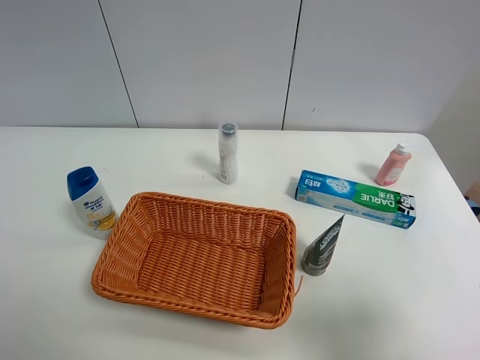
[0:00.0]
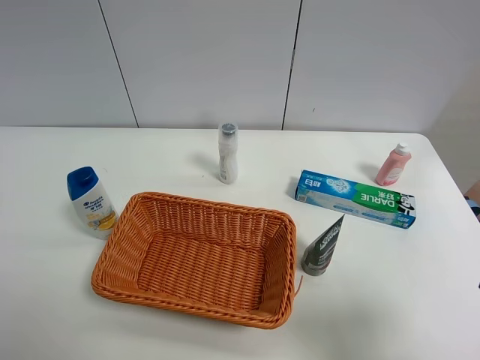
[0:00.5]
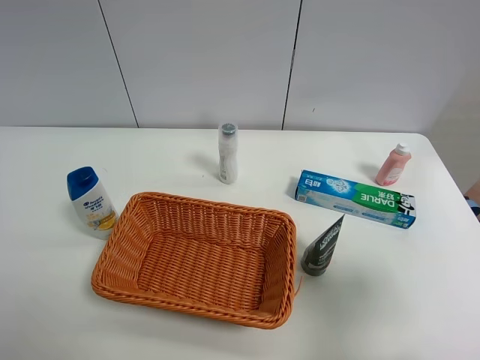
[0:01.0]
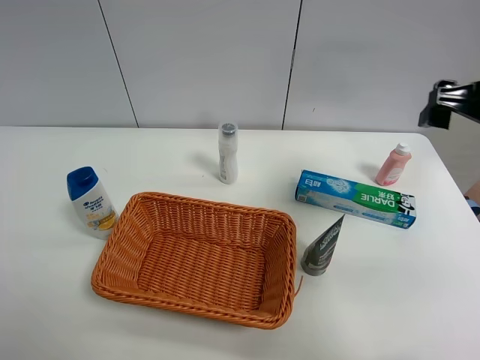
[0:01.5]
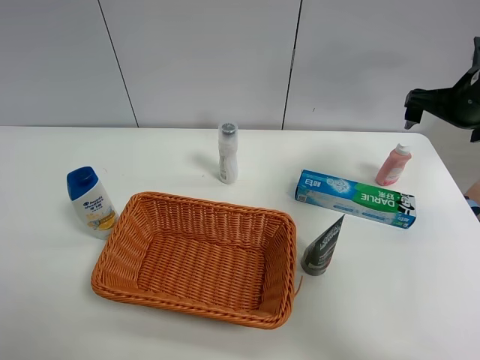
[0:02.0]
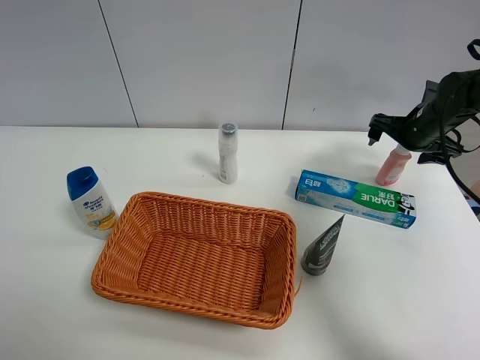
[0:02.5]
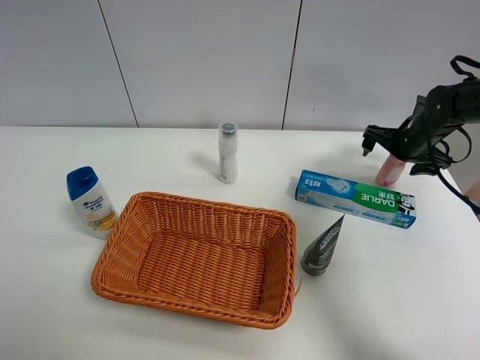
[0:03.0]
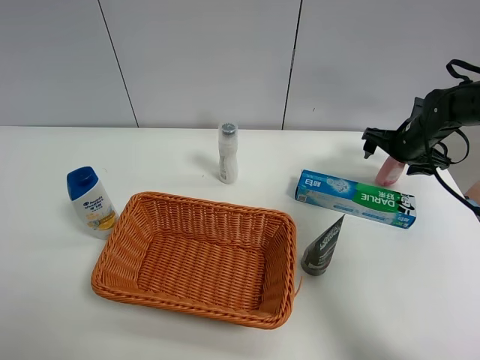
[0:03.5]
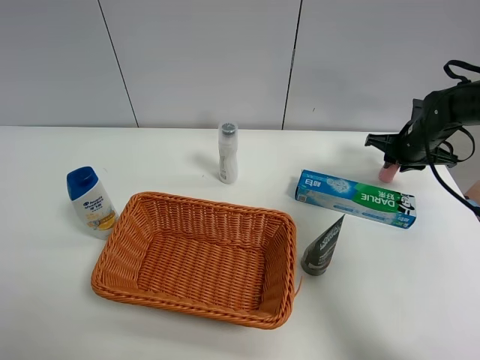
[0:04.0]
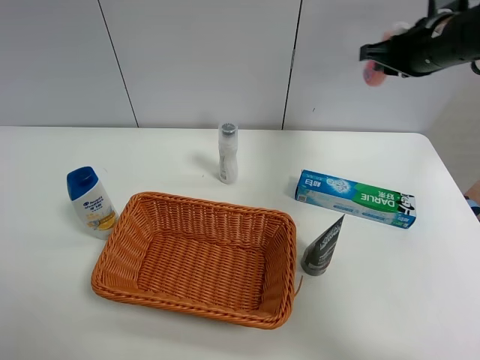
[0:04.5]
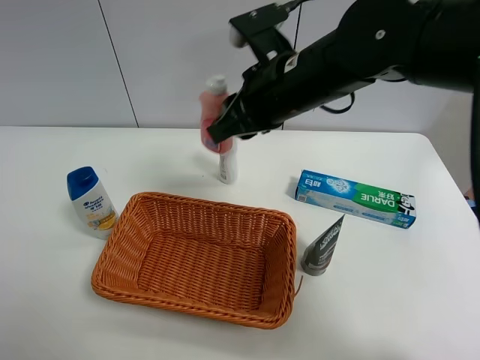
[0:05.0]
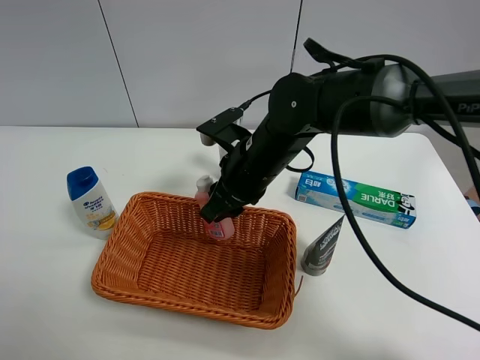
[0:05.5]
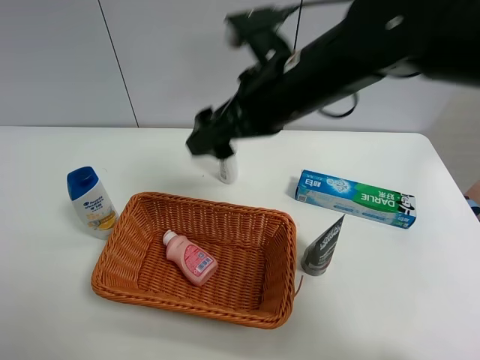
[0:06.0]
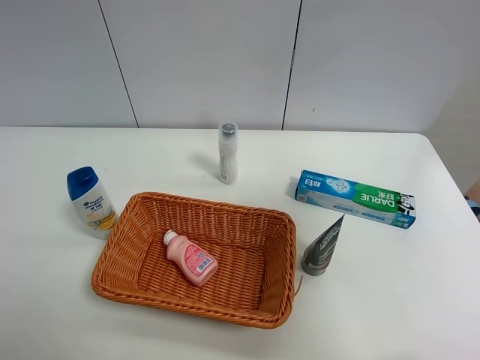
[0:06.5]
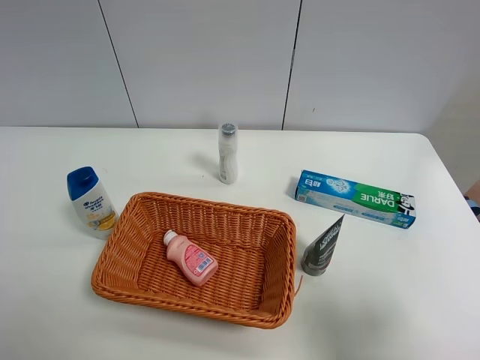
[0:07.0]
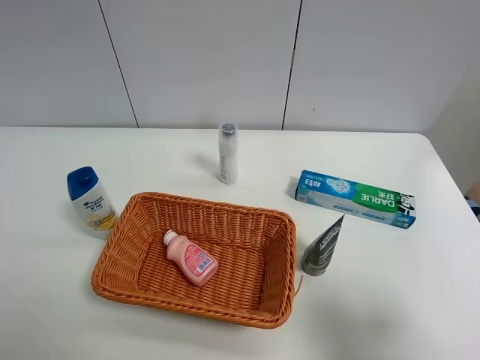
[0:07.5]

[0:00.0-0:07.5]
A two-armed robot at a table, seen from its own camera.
Task of the whole recording: Place the object closest to the toothpaste in the basket.
Step, 0:00.0 to 0:03.5: Grasp the pink laundry detergent with right gripper.
Step, 0:04.0 to 0:05.5: Place the pink laundry detergent in the basket with right gripper.
0:00.0 to 0:02.0: The right gripper travels forward by some 35 cm.
0:02.0 to 0:04.0: The right gripper travels downward and forward by approximately 15 cm, and closes its fingers.
0:04.0 to 0:05.5: The right gripper travels to the left and backward by some 35 cm.
0:05.5 to 0:07.5: The right gripper is displaced backward and to the right by roughly 40 cm, and opens.

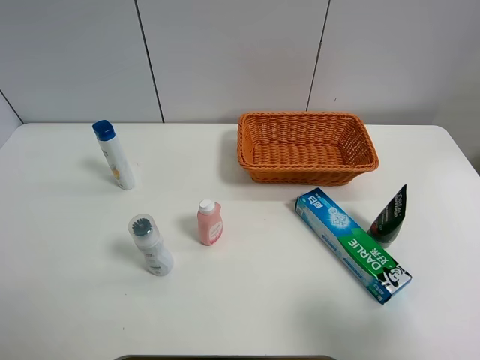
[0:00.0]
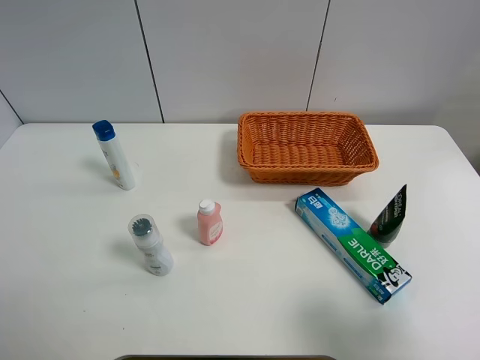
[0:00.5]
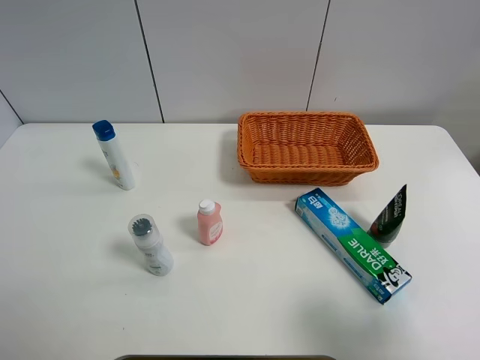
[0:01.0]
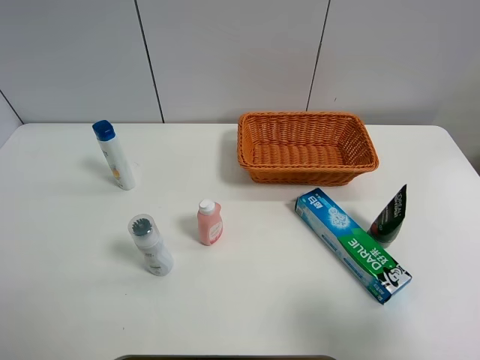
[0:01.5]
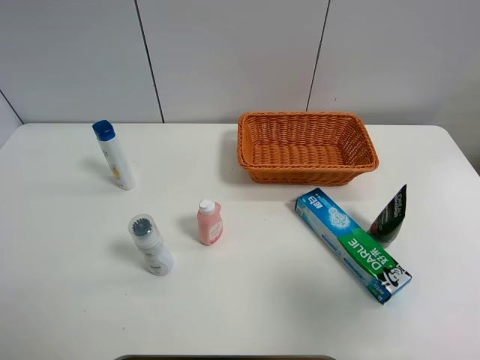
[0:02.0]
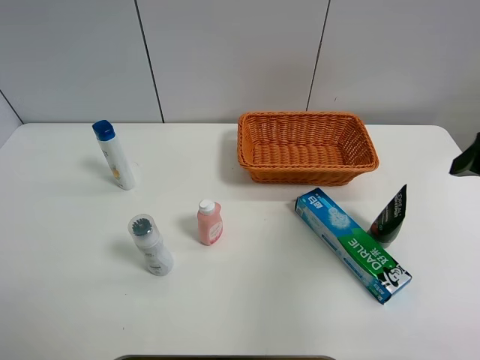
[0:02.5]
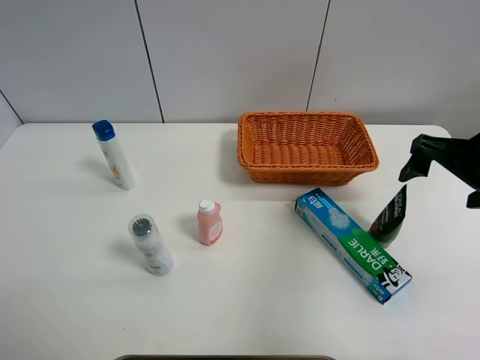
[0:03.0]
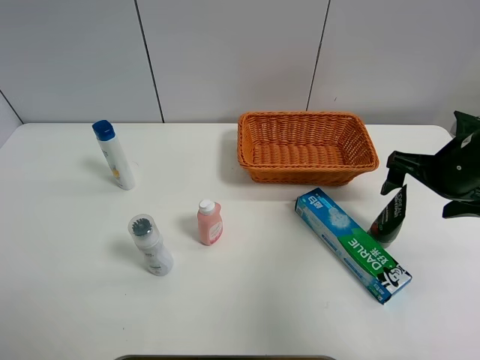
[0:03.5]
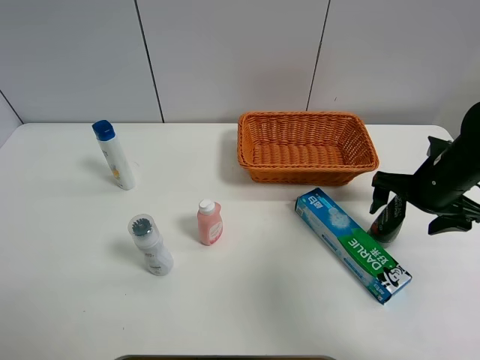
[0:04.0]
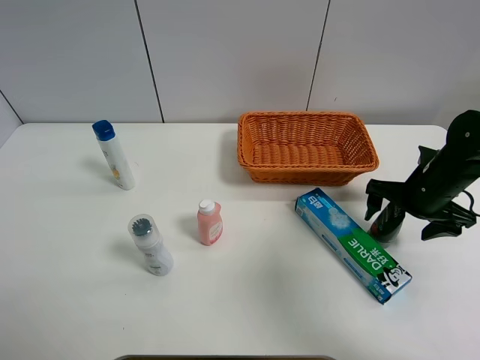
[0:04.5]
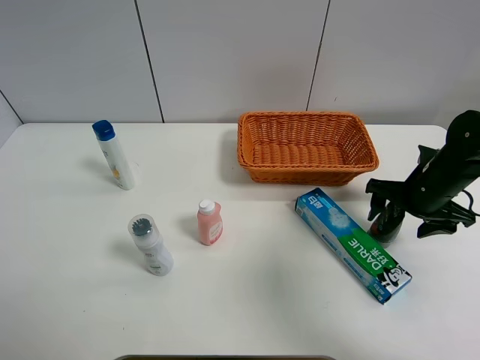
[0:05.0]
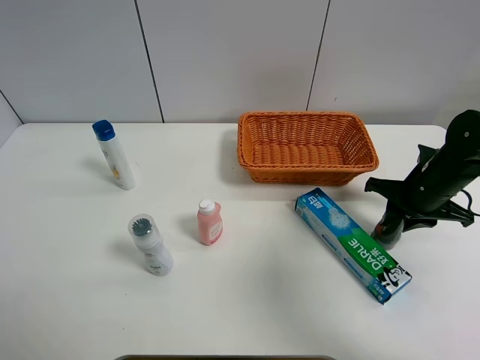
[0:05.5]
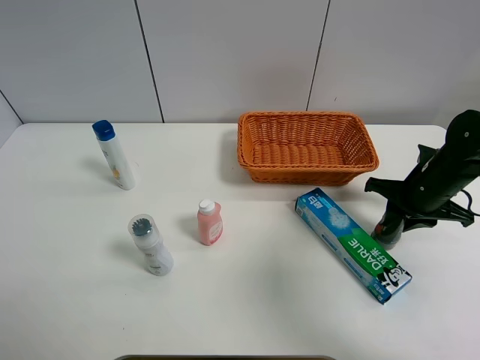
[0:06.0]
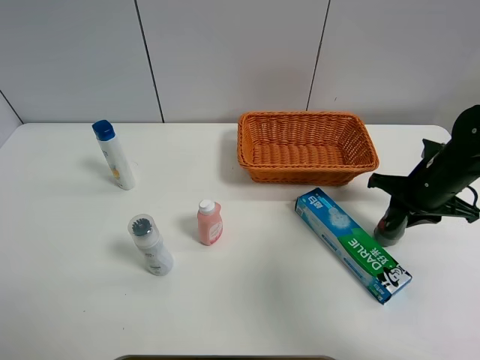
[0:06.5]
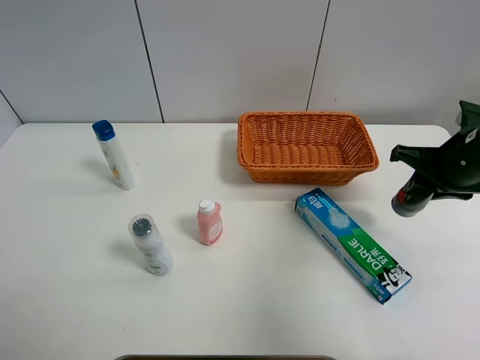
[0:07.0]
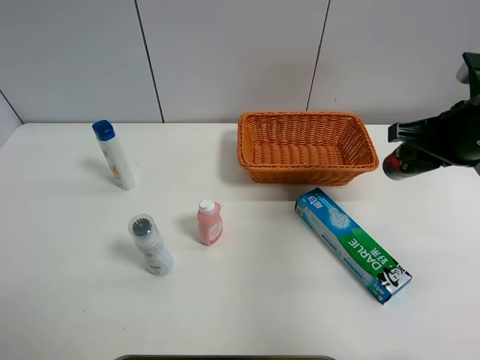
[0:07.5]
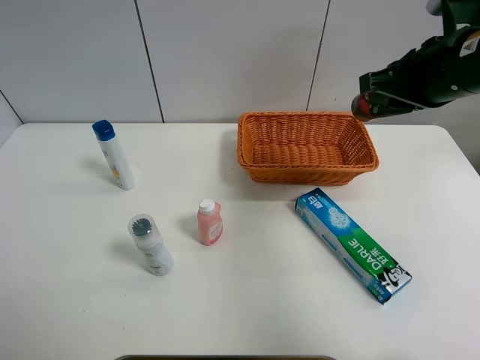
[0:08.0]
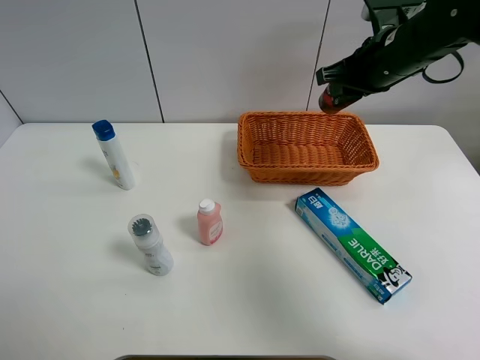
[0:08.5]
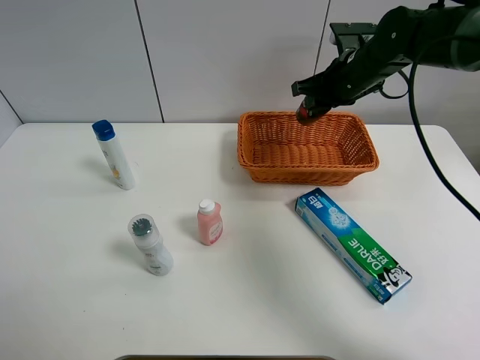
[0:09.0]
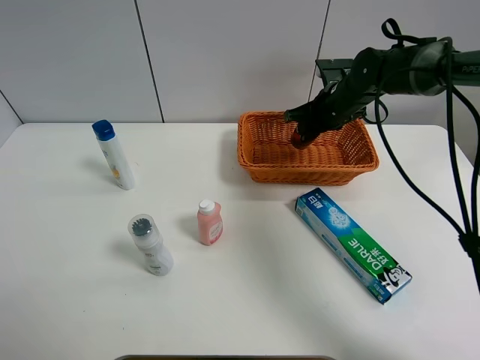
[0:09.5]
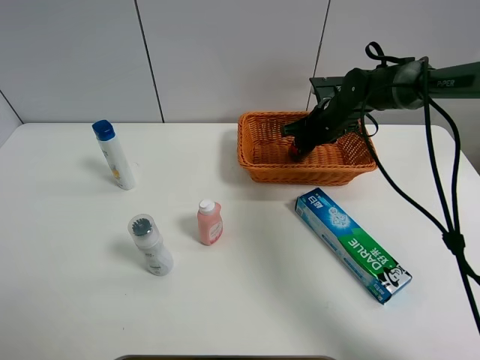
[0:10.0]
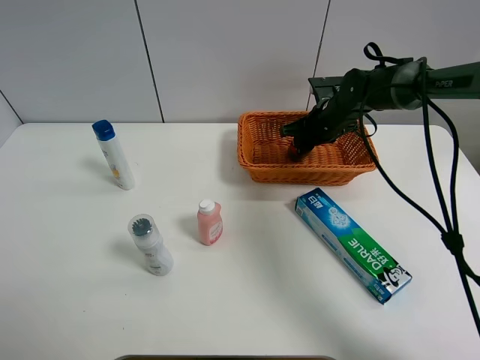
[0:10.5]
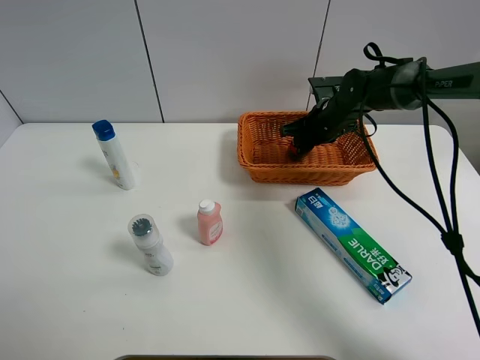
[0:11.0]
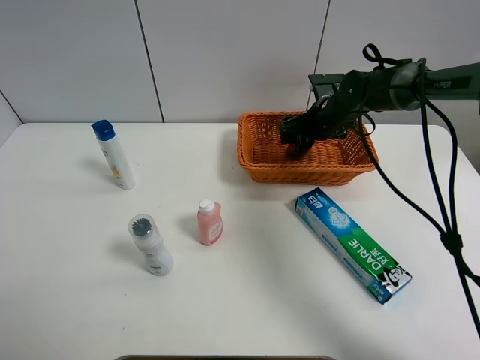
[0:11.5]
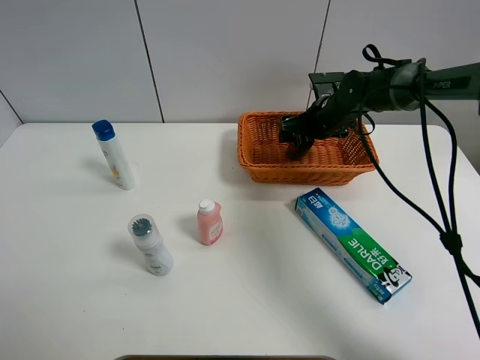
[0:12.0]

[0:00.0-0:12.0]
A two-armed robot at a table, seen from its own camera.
Task of the whole recording: Place the object closest to the toothpaste in the basket.
Step, 0:00.0 to 0:05.0: Grasp the soft facial cleanser with right gripper.
0:00.0 to 0:02.0: The right gripper heads upward, covering about 5 cm.
0:02.0 to 0:04.0: The right gripper heads forward and downward, covering about 30 cm.
0:04.0 to 0:06.0: The right gripper closes its fingers.
0:06.0 to 0:08.0: The right gripper heads upward, covering about 20 cm.
0:08.0 to 0:10.0: The right gripper travels downward and forward by about 25 cm.
0:10.0 to 0:12.0: The right gripper opens its fingers.

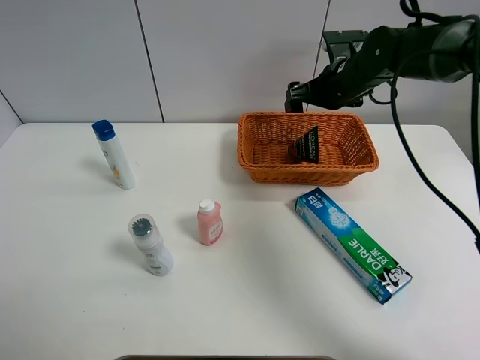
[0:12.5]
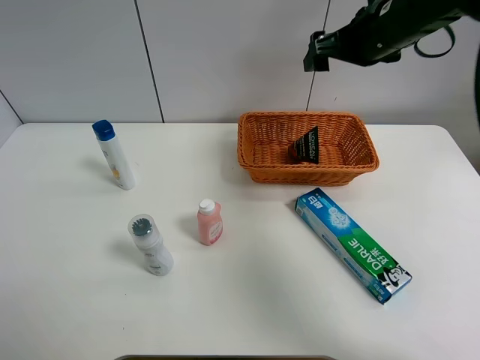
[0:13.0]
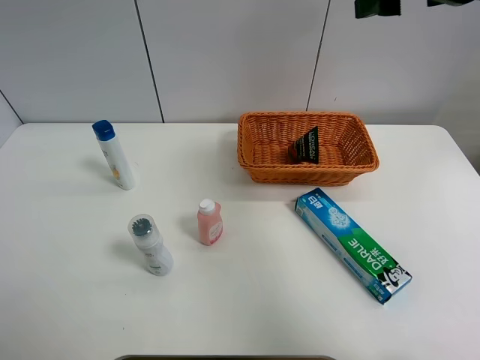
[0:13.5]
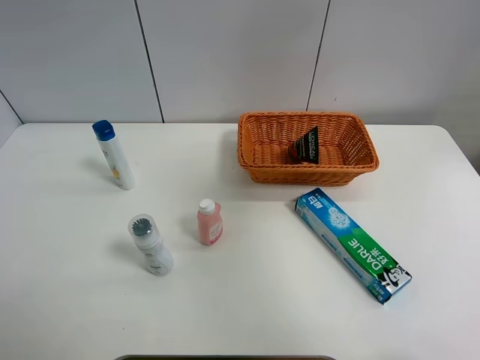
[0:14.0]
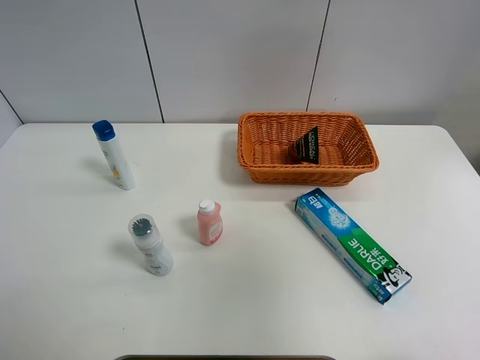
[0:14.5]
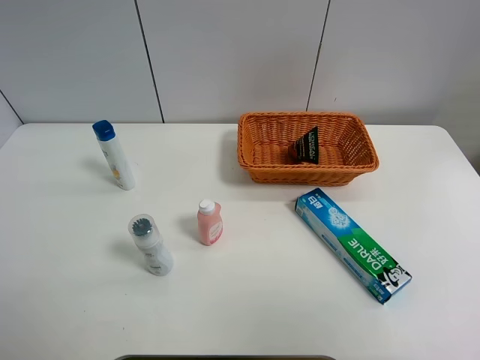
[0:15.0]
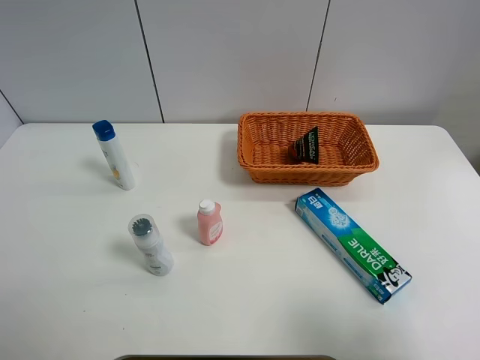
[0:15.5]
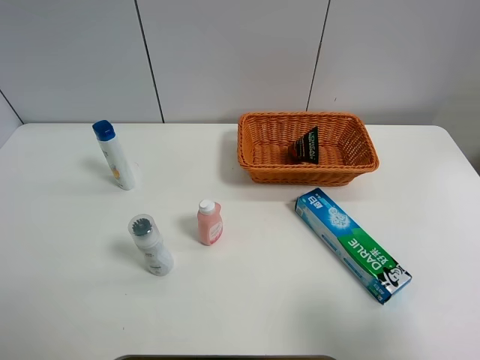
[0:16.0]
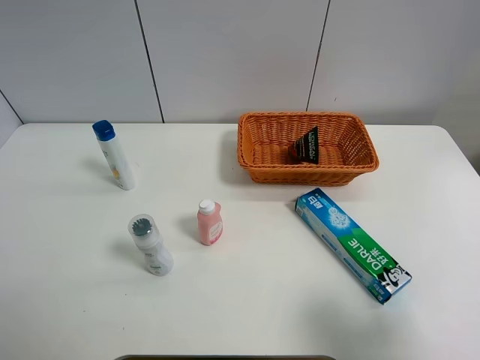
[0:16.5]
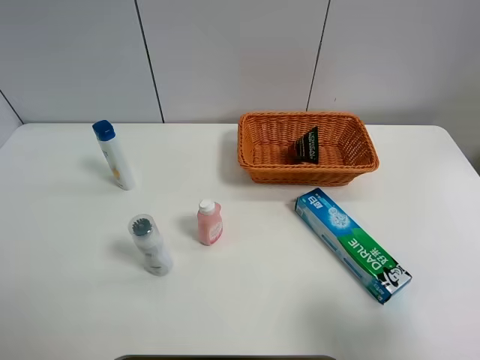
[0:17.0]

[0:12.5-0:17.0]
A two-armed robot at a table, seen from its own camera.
Task of the whole recording: Place the object closest to the toothpaste in the basket.
0:12.5 to 0:14.5: The right gripper travels backward and upward by some 50 cm.
0:14.5 to 0:17.0: The right gripper is displaced downward by approximately 25 cm.
